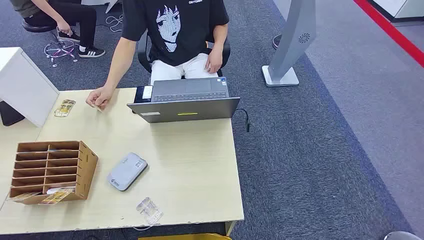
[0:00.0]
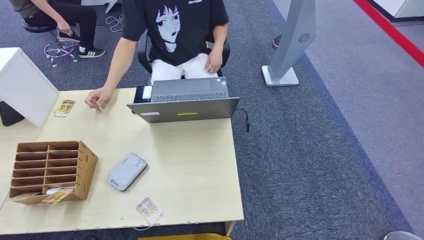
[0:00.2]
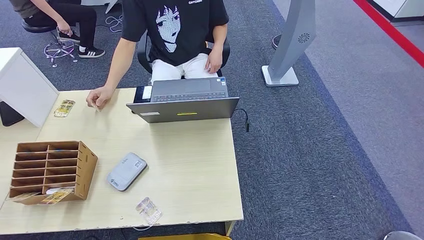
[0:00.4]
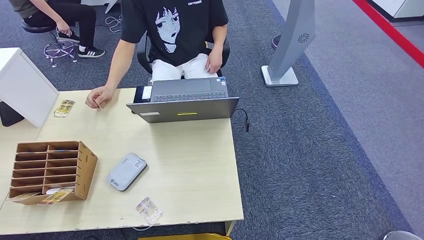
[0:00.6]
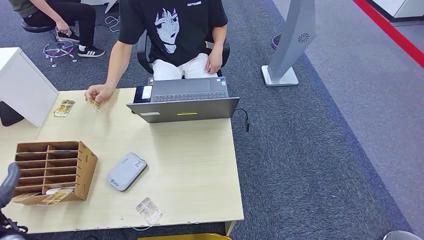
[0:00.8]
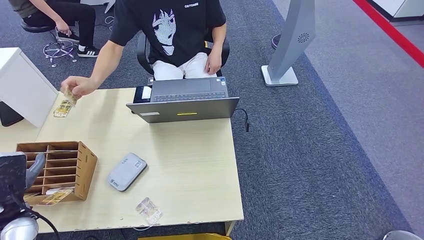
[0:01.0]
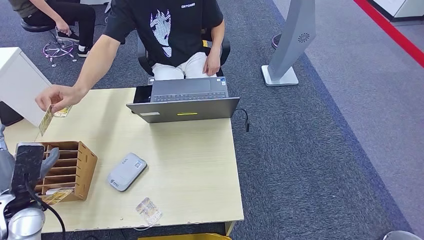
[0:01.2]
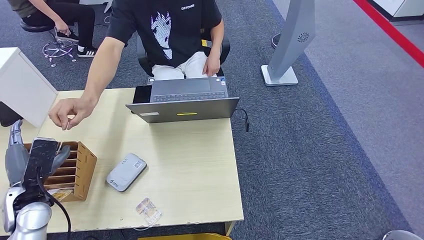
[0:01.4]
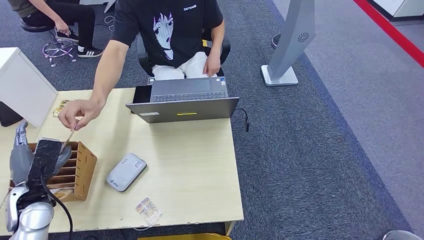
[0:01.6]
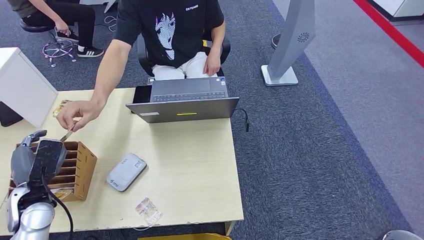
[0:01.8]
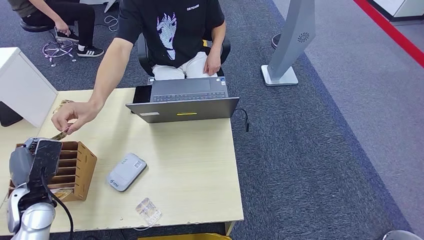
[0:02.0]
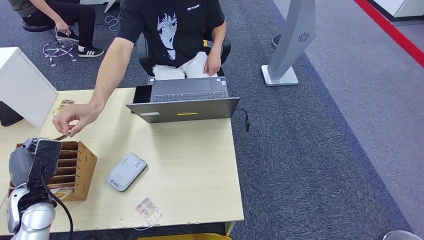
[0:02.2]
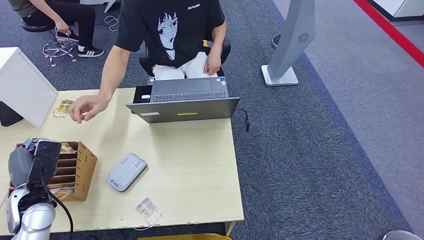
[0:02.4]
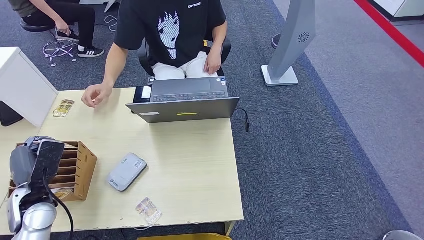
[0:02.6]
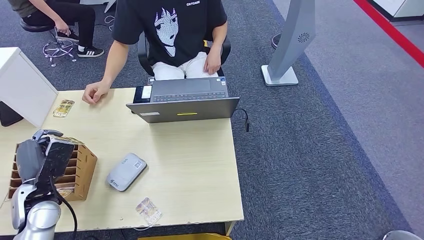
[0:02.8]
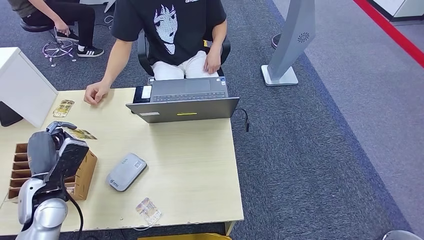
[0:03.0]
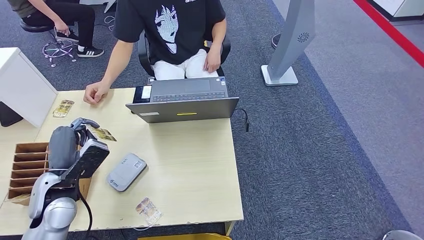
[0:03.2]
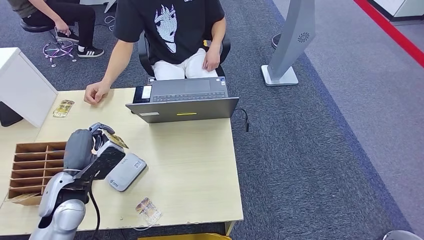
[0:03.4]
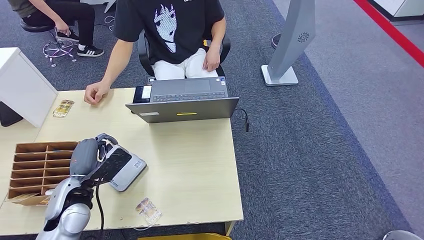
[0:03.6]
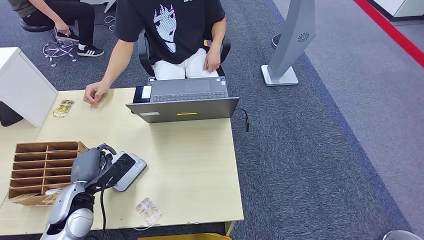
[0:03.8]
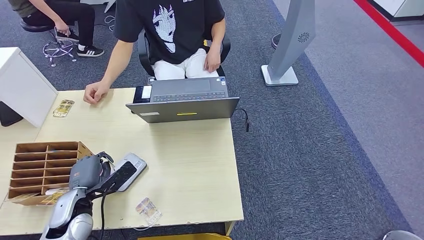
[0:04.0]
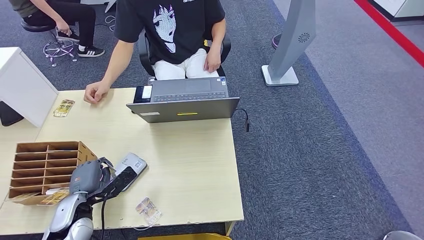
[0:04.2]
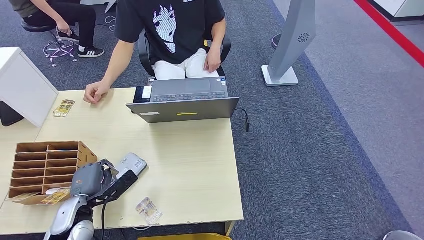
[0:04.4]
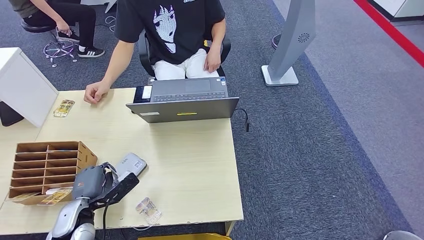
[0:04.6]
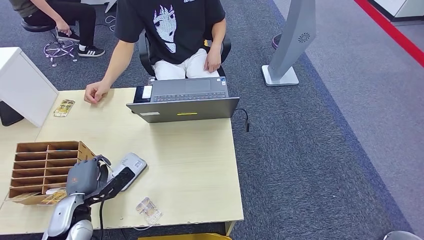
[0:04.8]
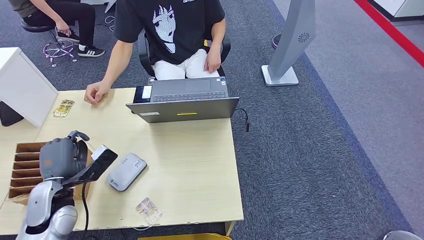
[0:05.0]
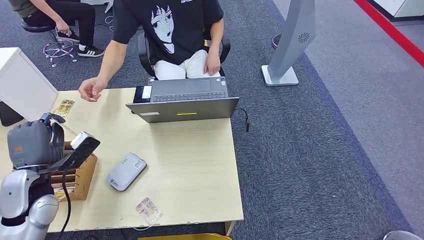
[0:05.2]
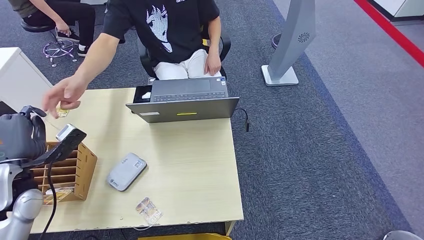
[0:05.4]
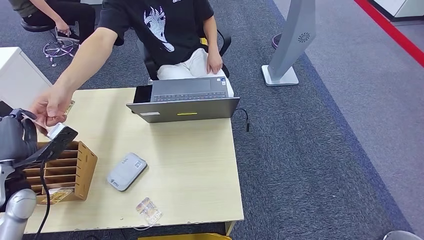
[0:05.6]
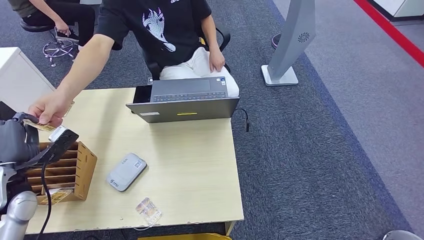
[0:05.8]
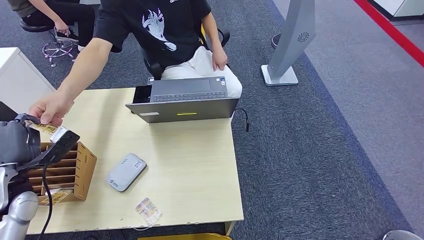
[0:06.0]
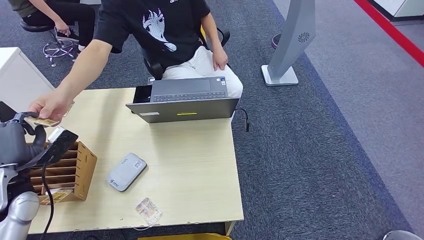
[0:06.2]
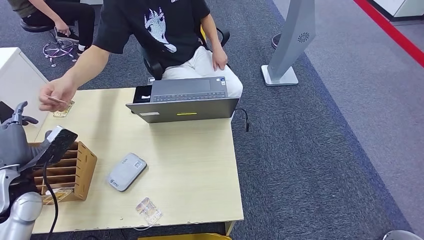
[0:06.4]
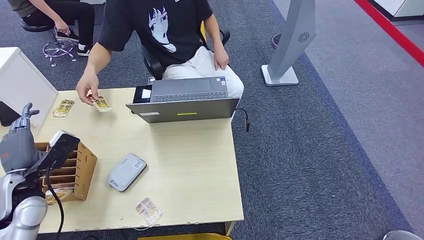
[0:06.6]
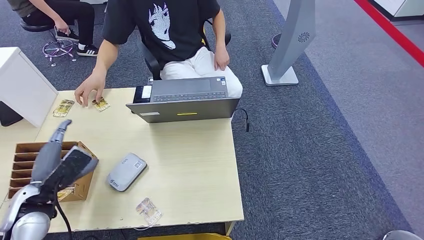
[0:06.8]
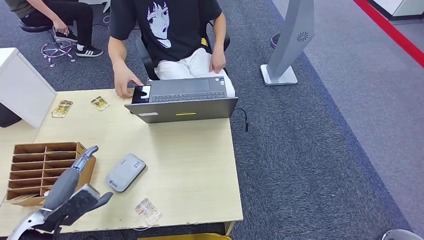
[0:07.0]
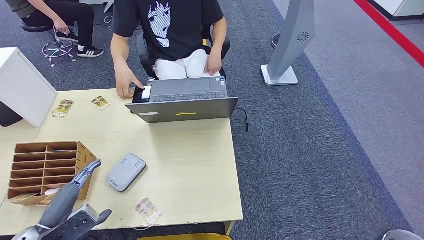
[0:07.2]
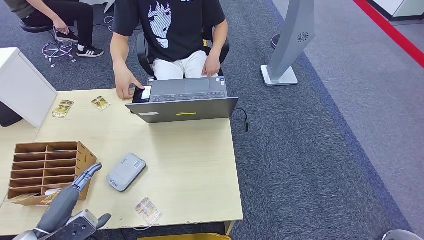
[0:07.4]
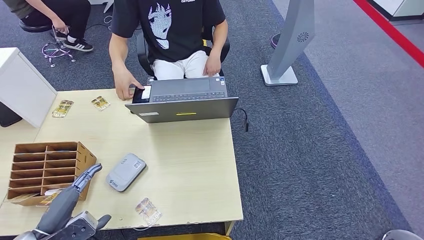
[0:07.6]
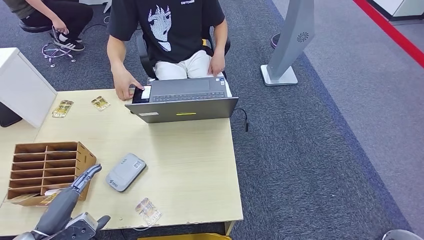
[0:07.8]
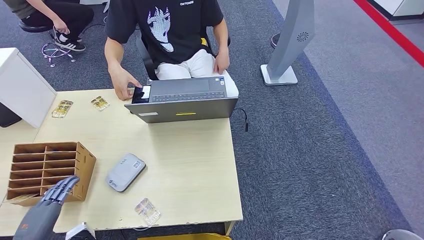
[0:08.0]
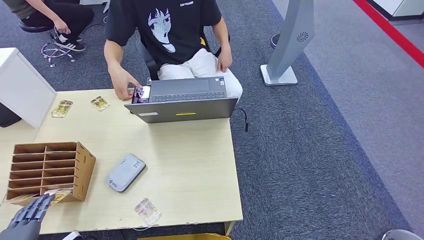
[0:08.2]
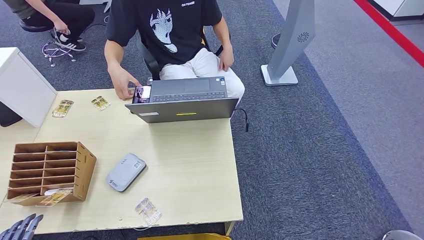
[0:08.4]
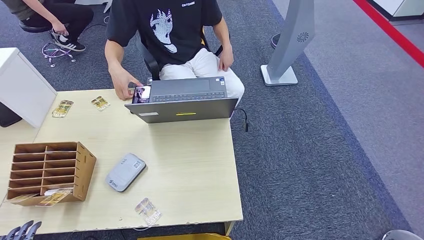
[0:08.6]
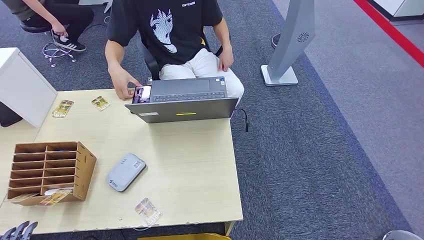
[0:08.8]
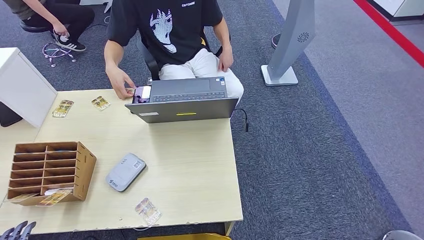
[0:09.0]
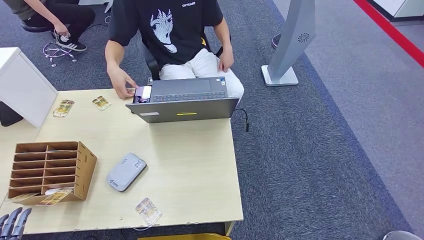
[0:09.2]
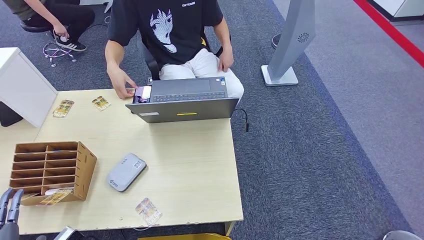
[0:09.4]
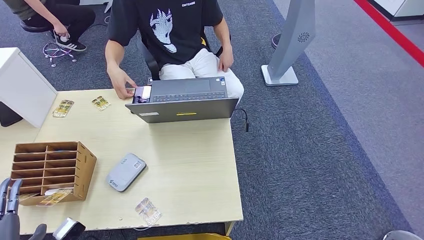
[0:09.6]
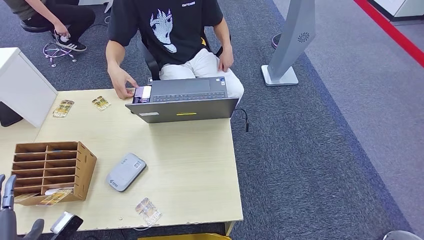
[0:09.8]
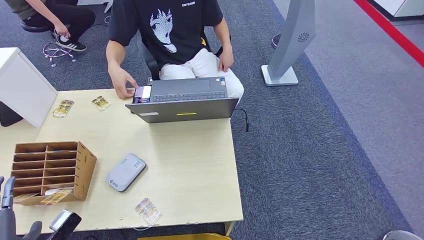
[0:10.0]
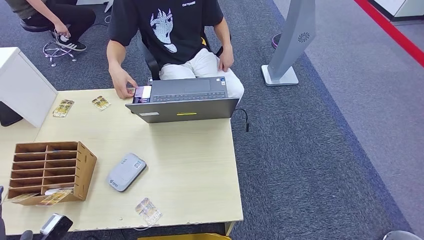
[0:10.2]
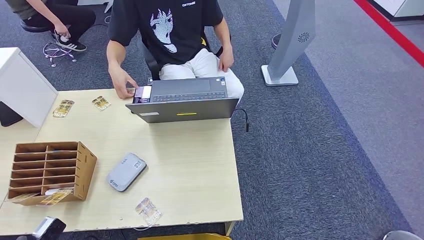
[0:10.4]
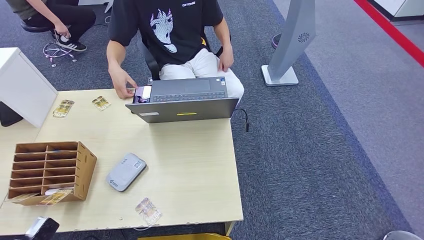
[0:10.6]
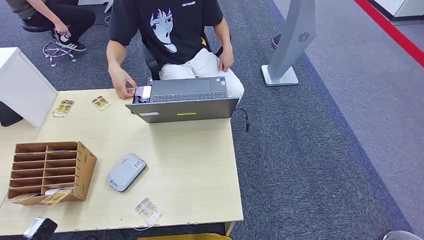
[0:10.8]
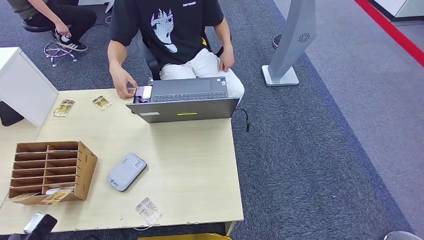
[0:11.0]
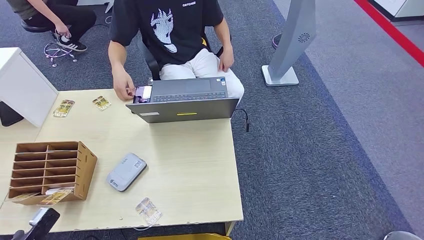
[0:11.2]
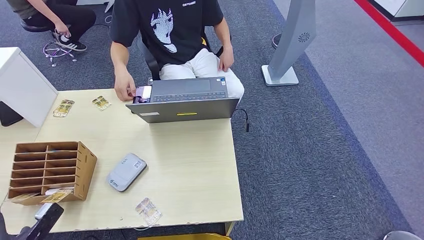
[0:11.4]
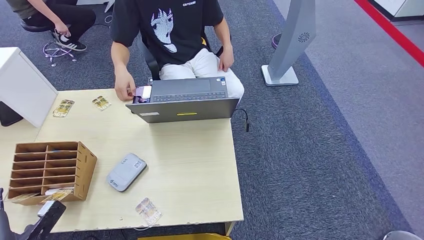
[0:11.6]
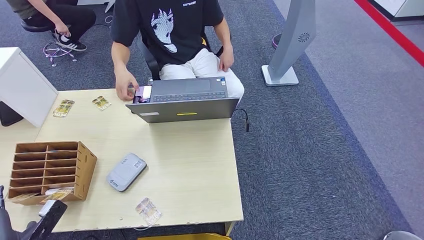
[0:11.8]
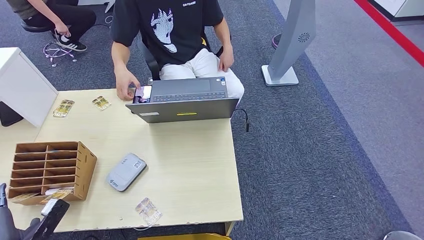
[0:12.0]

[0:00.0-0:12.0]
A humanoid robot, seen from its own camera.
Step, 0:00.0 to 0:02.2: Take the ID card from the person's hand.
Step, 0:03.0 to 0:04.0: Place the ID card on the card reader.
Step, 0:04.2 to 0:06.2: Hand the ID card to the person.
0:01.6 to 0:03.0: The hands stay close to where they were, moving slightly.
0:03.0 to 0:04.4: The left hand moves downward, about 10 cm.
0:04.4 to 0:06.0: The left hand heads upward, to the left and forward, covering roughly 15 cm.
0:06.0 to 0:07.6: The left hand is displaced backward by some 15 cm.
0:07.6 to 0:09.0: The left hand travels backward by approximately 15 cm.
0:09.0 to 0:10.4: The left hand heads forward, covering approximately 5 cm.
0:10.4 to 0:12.0: The left hand travels downward and forward by roughly 10 cm.

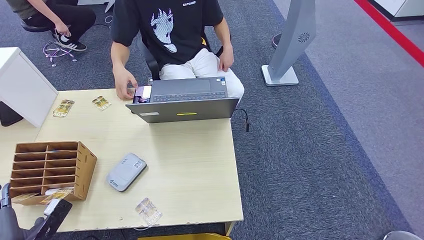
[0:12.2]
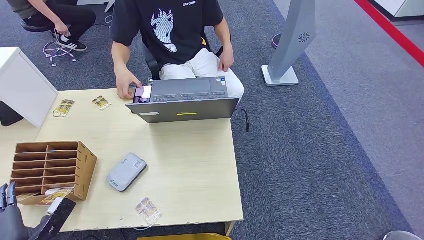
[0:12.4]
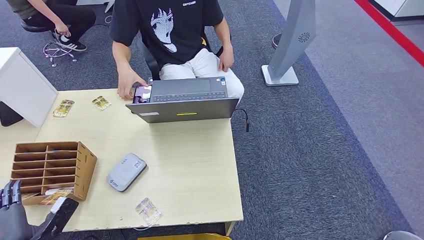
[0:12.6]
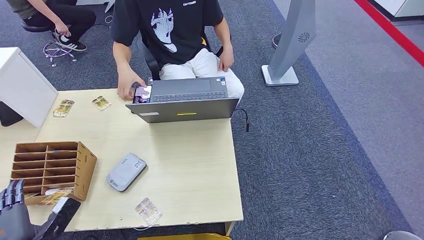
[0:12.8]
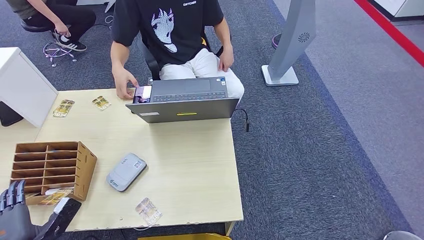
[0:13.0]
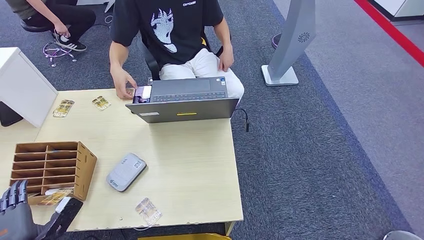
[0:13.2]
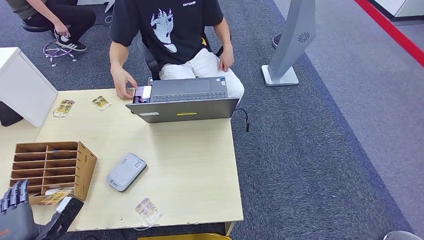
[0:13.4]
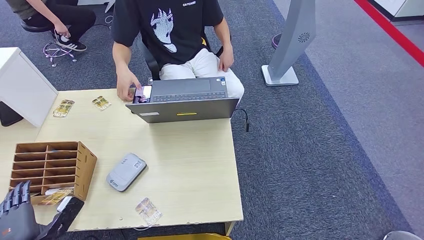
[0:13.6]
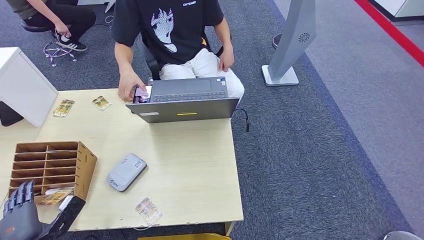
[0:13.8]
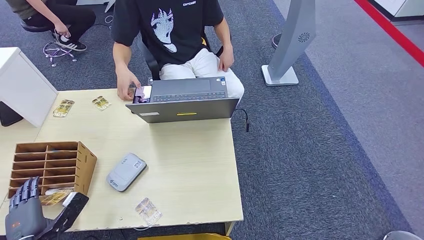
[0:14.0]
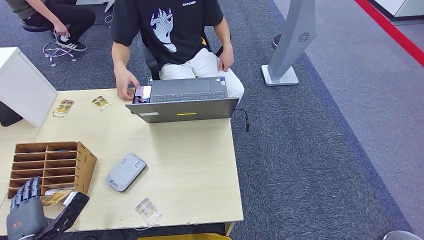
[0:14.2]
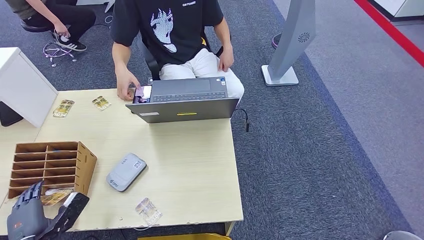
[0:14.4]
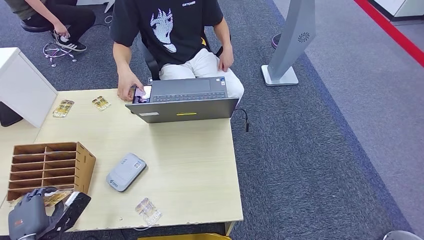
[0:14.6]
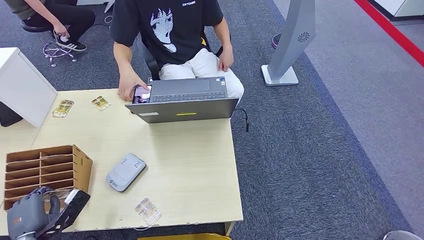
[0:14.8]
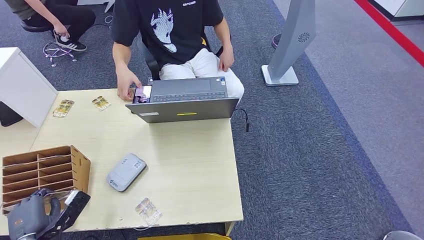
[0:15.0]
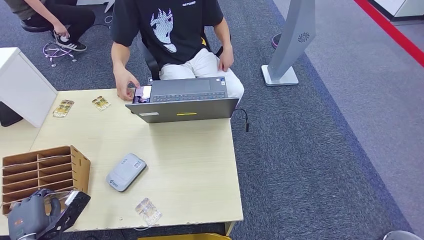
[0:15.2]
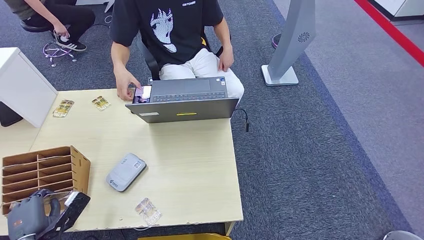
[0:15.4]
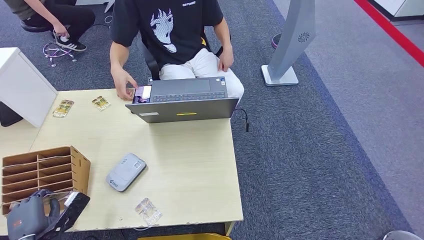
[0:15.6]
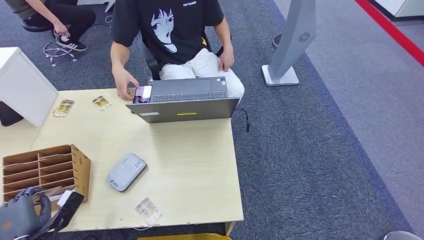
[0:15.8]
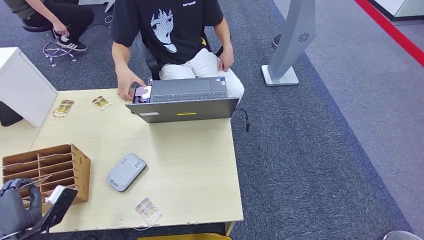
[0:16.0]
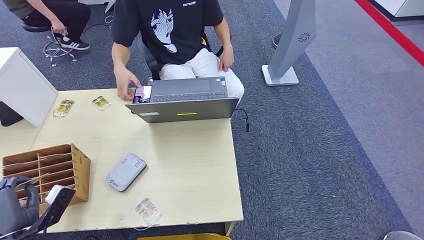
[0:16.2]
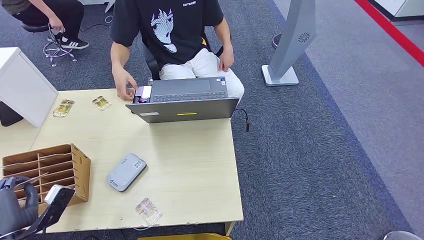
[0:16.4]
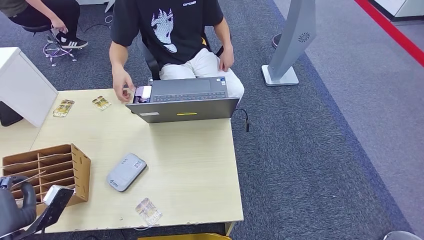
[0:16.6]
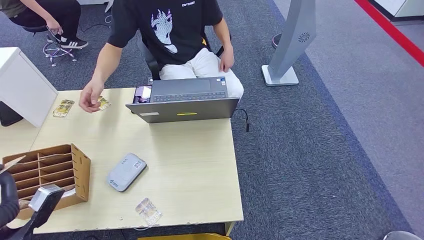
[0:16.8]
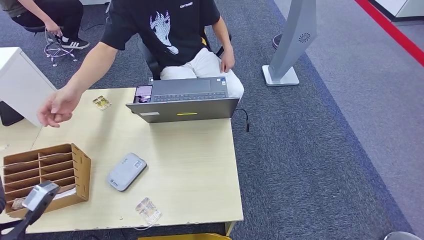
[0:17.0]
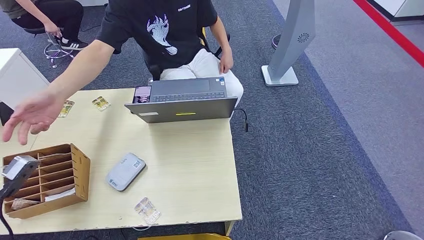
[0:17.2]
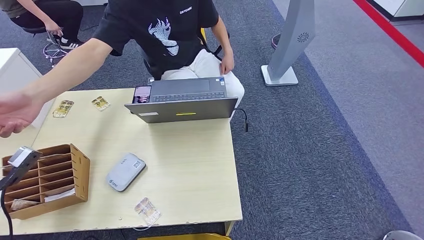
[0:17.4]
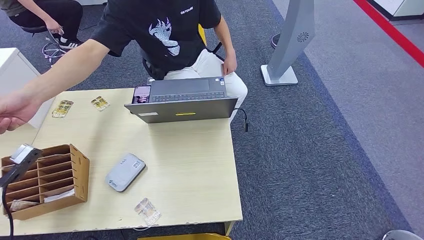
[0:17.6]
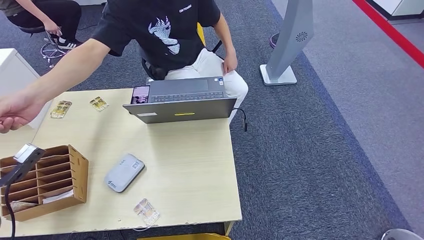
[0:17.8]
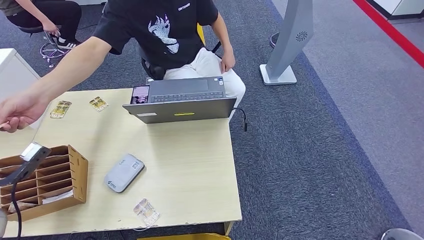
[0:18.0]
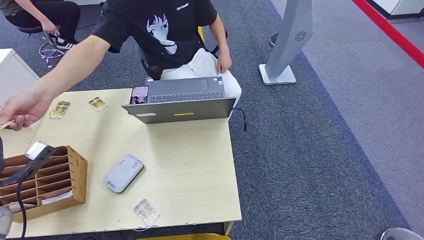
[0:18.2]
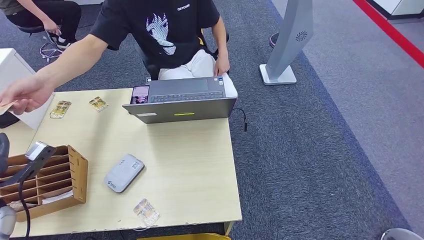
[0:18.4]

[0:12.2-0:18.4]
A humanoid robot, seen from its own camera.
Step, 0:12.2 to 0:16.2: Pick up the room key from the key card box.
Step, 0:16.4 to 0:18.4: Hand the room key to the person.
0:12.2 to 0:15.4: There are only small adjustments of the hands.
0:15.4 to 0:16.8: The left hand travels upward by about 10 cm.
0:16.8 to 0:18.4: The left hand travels forward and to the left by approximately 10 cm.
